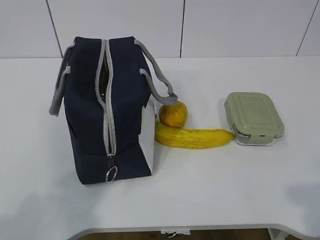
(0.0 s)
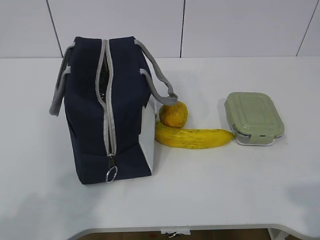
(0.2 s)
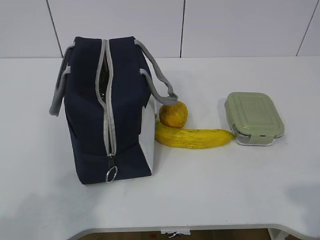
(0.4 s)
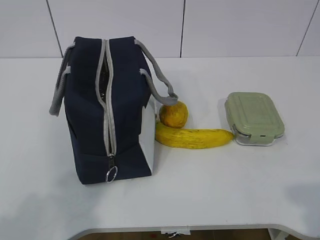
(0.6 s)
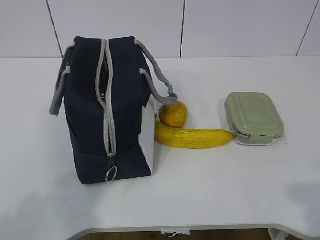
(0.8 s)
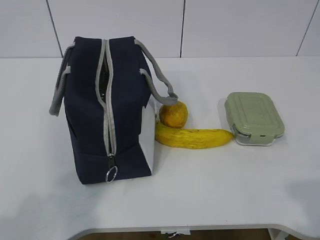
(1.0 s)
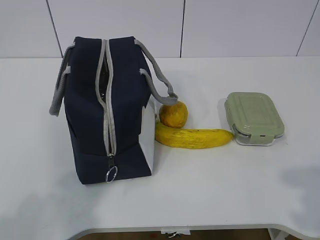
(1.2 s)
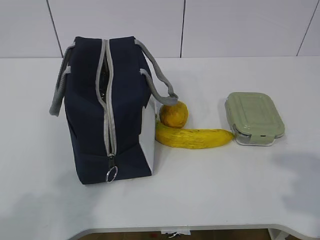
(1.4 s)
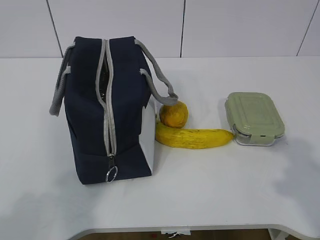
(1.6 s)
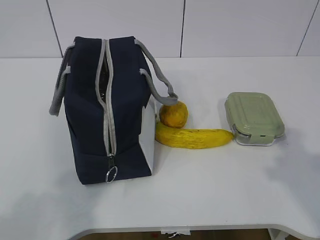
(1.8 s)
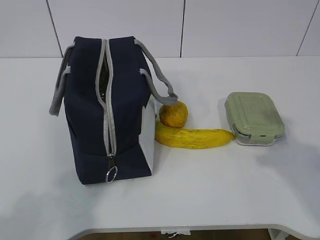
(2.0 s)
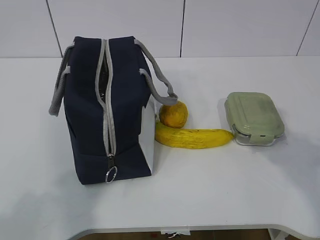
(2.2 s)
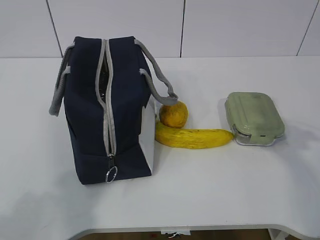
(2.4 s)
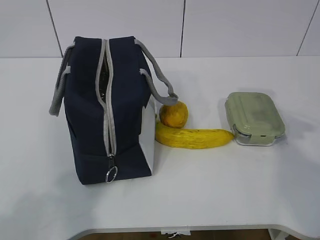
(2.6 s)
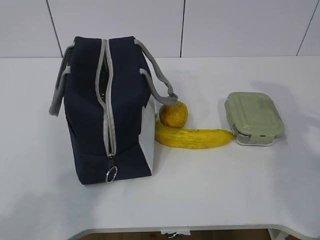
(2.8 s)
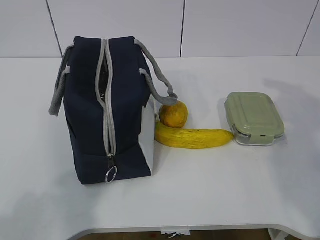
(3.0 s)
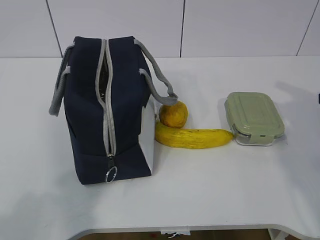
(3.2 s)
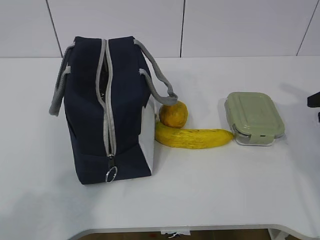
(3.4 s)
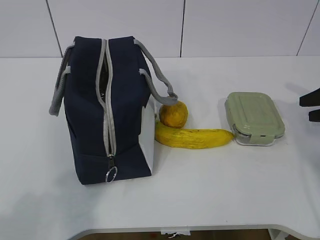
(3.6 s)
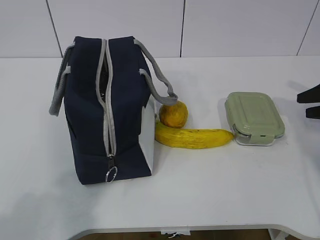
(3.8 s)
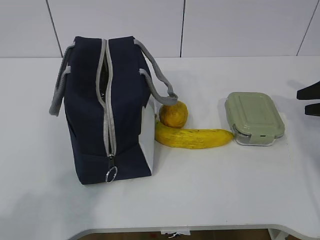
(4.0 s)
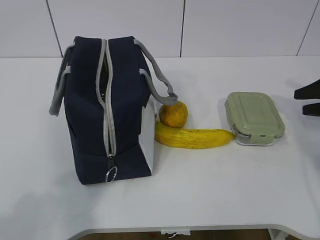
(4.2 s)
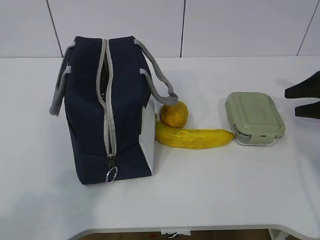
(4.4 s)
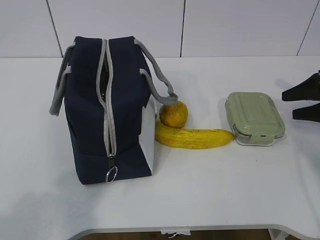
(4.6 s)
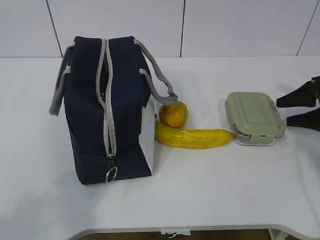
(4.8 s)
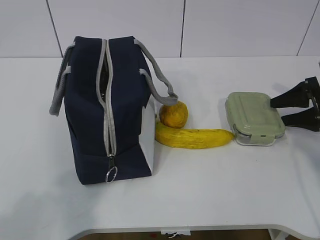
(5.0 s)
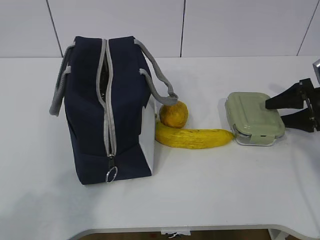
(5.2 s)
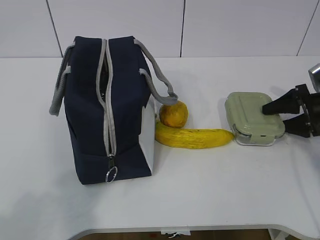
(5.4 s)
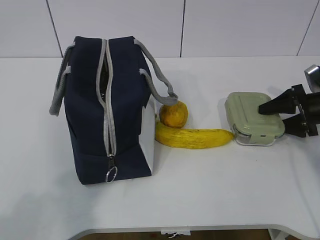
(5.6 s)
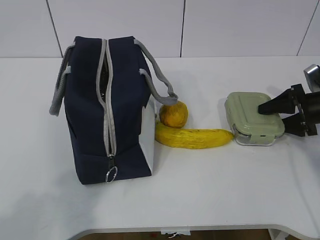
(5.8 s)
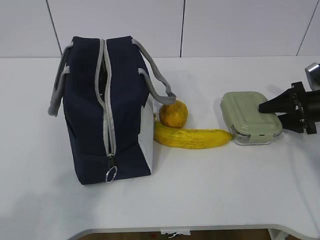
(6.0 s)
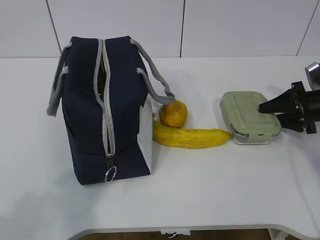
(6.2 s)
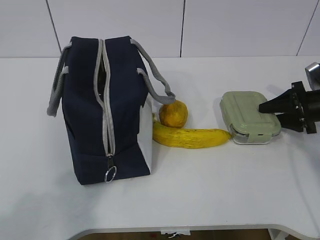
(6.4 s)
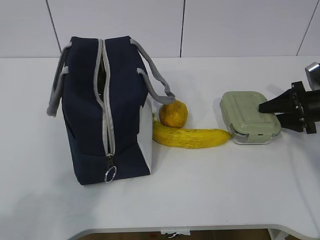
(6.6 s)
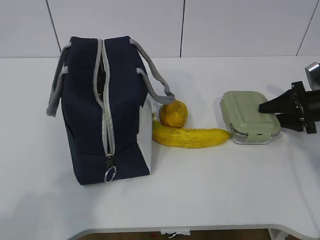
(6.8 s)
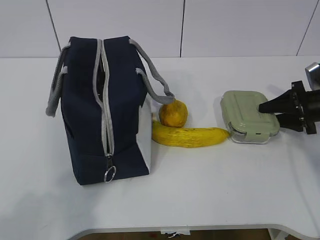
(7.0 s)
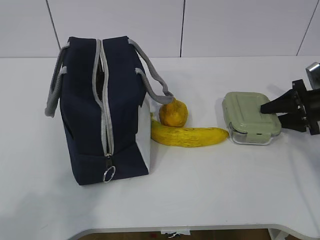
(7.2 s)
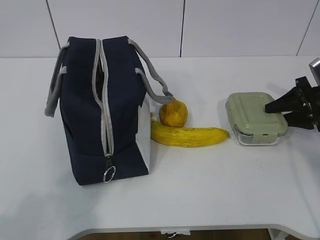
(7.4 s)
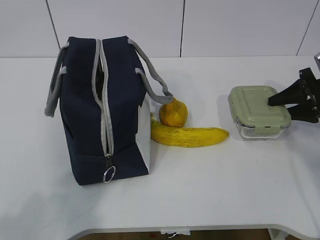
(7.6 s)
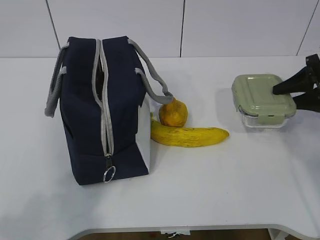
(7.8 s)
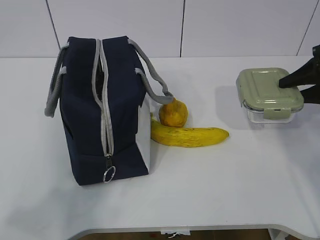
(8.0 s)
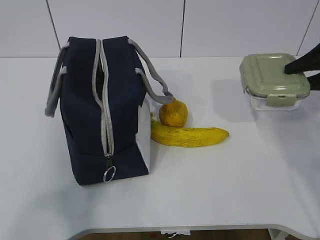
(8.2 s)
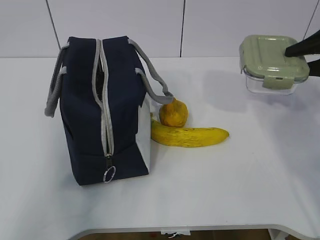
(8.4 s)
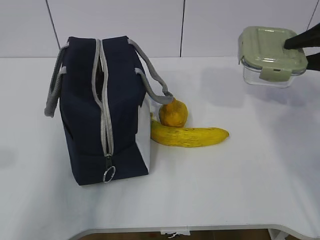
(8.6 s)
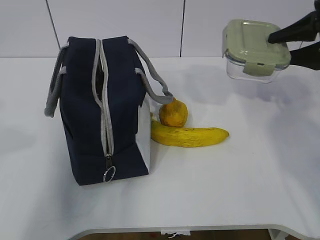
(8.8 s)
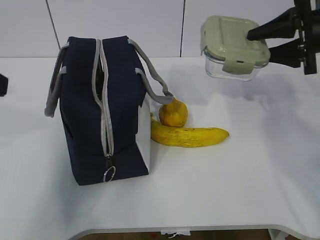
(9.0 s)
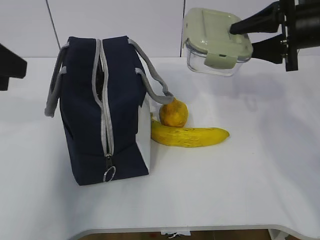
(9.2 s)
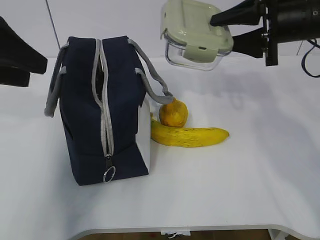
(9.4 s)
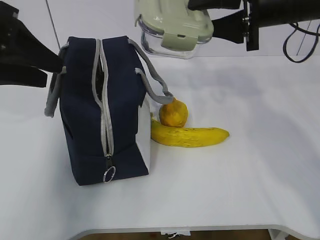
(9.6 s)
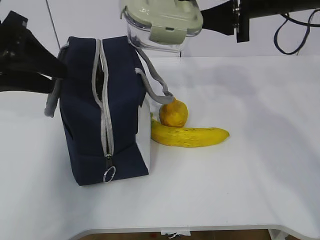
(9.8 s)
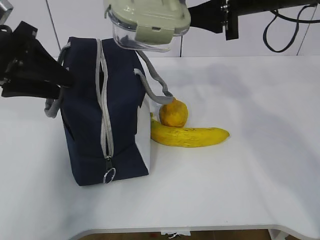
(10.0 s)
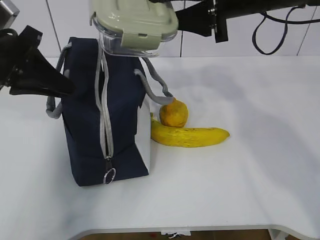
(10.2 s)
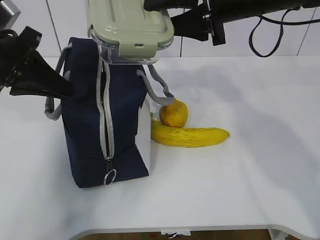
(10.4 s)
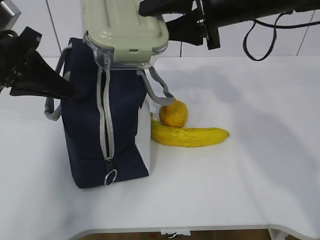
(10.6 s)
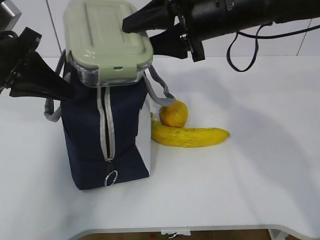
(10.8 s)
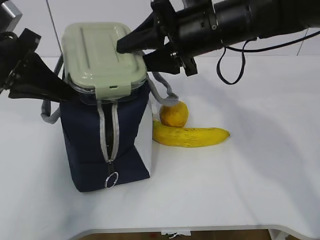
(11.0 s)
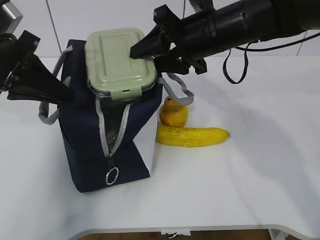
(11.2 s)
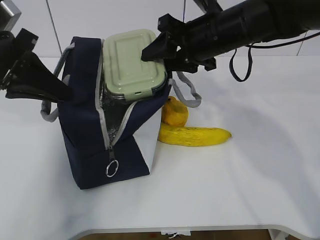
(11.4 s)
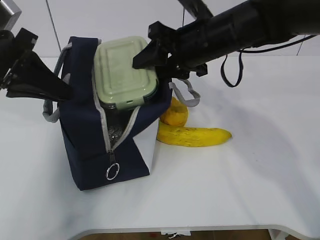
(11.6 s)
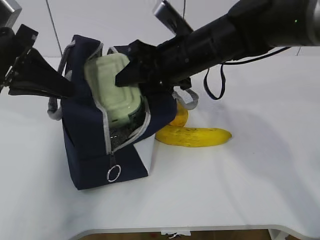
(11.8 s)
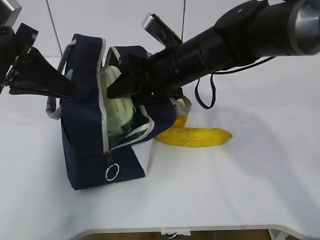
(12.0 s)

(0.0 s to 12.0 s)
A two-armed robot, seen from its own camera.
Step, 0.0 s - 7.0 s: Grasp the box with the right gripper.
1.6 s - 3.0 s: The right gripper heads forward, covering about 20 cm.
3.0 s - 4.4 s: The right gripper goes approximately 15 cm downward and forward.
4.4 s - 6.0 s: The right gripper is displaced downward by approximately 5 cm.
6.0 s - 7.6 s: There are only small adjustments of the grippers.
7.6 s - 9.0 s: The left gripper shifts some 20 cm forward. The right gripper moves upward and to the left, about 15 cm.
9.0 s - 10.4 s: The right gripper is displaced to the left by roughly 15 cm, while the left gripper shifts about 10 cm forward and downward, and closes its fingers.
10.4 s - 12.0 s: The right gripper shifts some 15 cm downward and to the left.

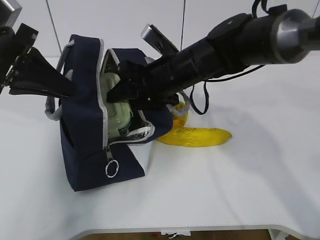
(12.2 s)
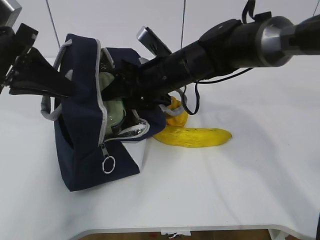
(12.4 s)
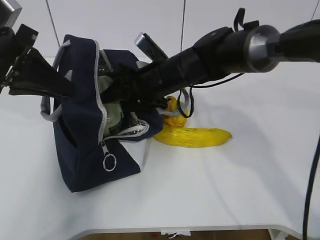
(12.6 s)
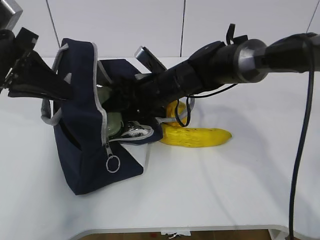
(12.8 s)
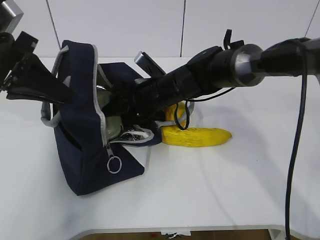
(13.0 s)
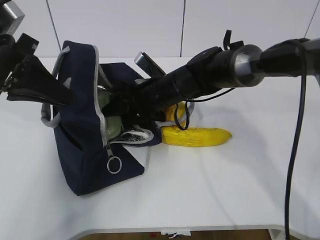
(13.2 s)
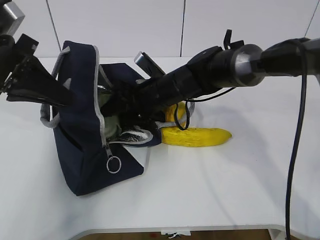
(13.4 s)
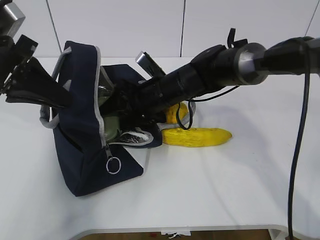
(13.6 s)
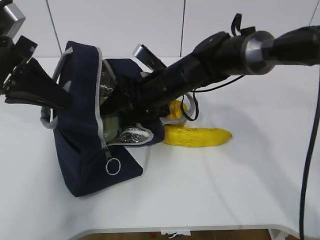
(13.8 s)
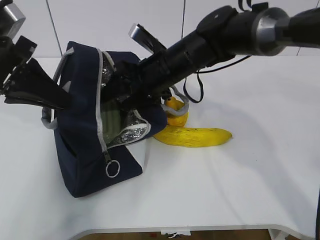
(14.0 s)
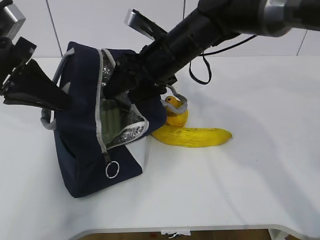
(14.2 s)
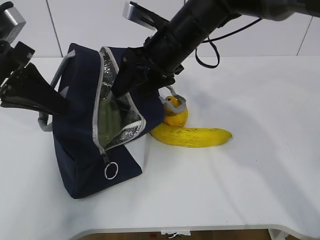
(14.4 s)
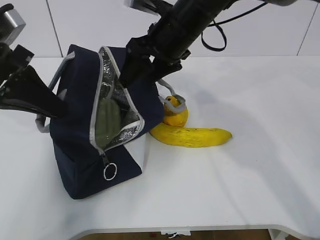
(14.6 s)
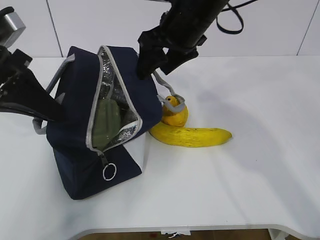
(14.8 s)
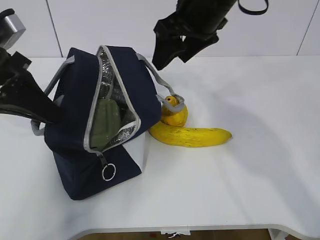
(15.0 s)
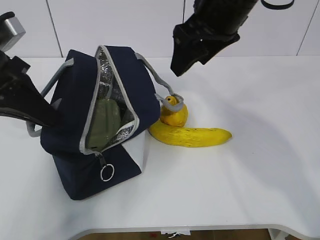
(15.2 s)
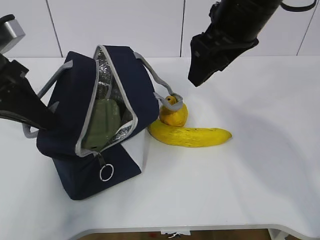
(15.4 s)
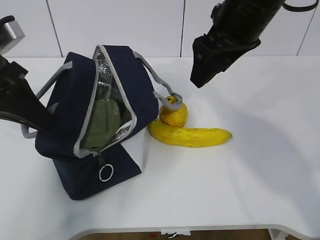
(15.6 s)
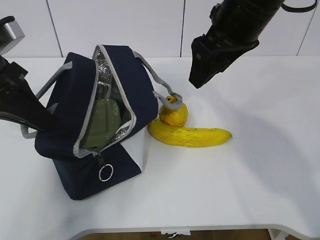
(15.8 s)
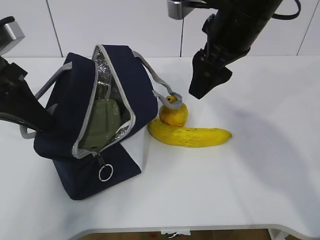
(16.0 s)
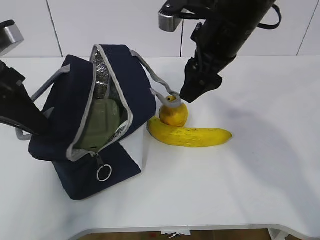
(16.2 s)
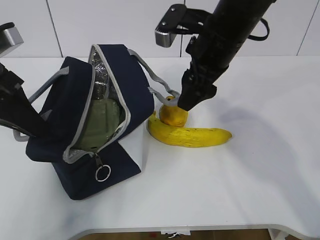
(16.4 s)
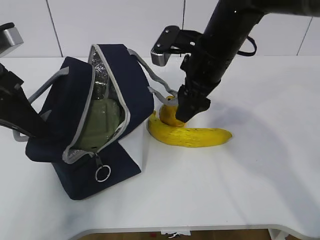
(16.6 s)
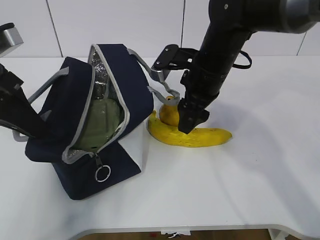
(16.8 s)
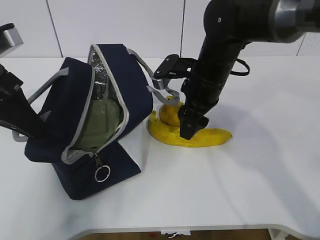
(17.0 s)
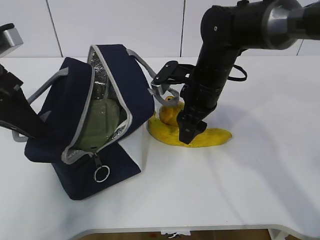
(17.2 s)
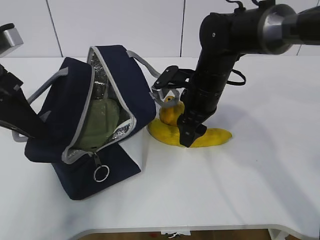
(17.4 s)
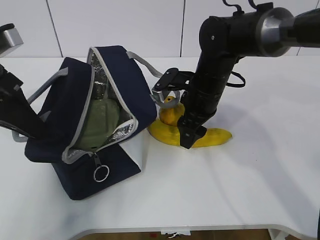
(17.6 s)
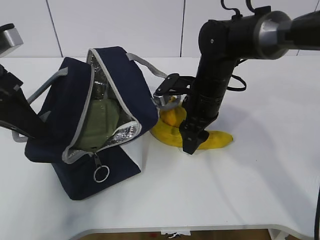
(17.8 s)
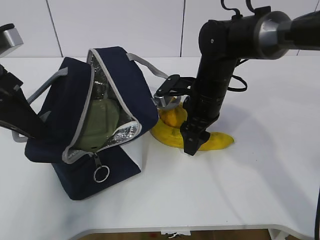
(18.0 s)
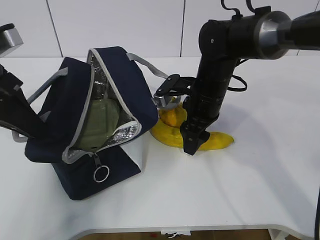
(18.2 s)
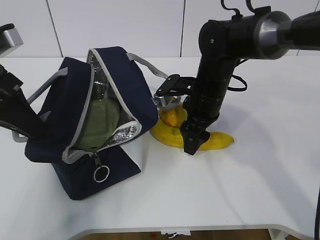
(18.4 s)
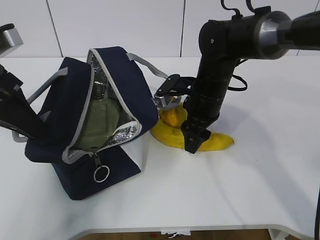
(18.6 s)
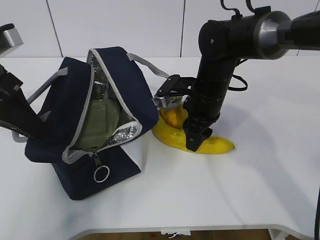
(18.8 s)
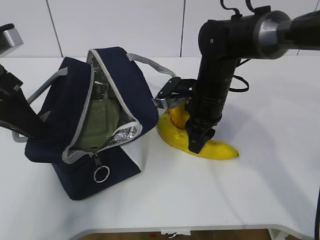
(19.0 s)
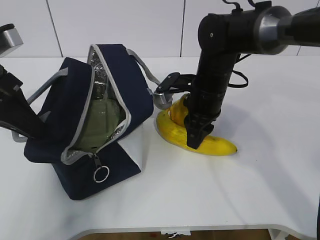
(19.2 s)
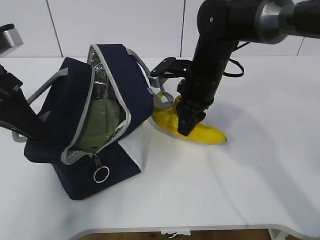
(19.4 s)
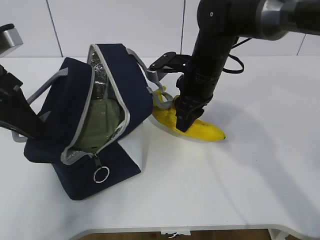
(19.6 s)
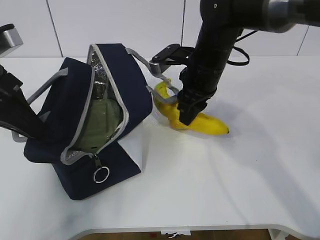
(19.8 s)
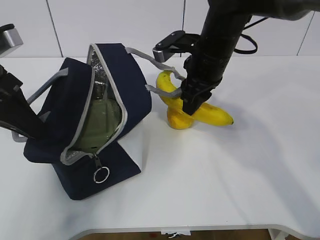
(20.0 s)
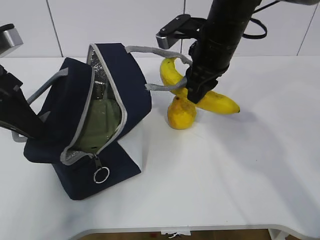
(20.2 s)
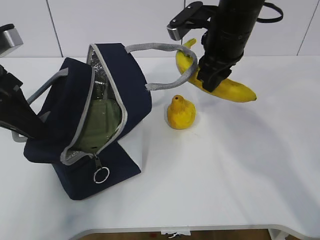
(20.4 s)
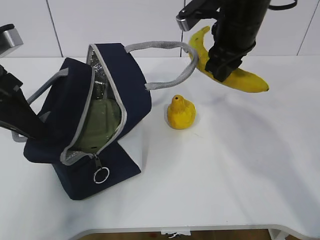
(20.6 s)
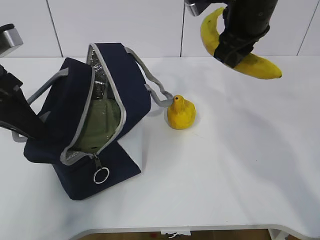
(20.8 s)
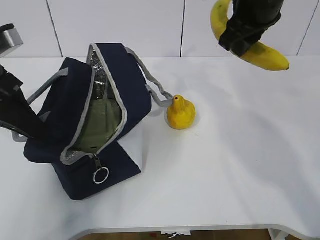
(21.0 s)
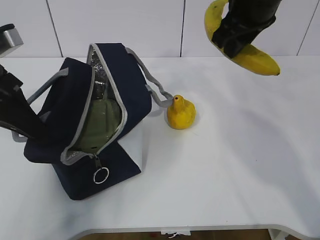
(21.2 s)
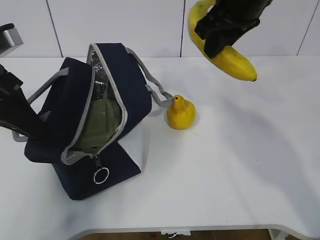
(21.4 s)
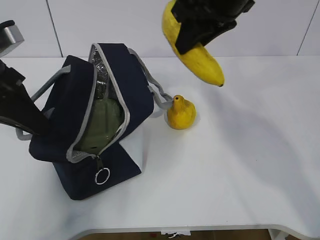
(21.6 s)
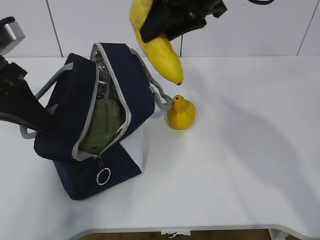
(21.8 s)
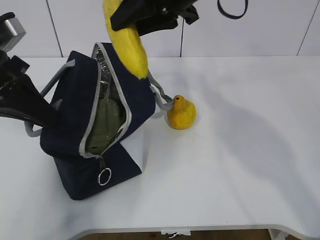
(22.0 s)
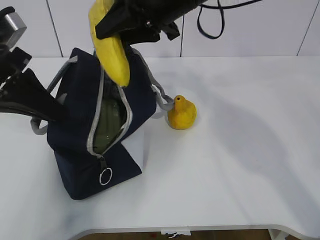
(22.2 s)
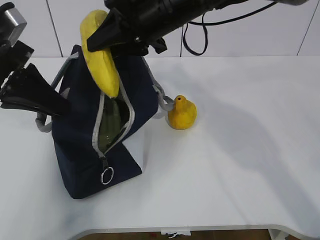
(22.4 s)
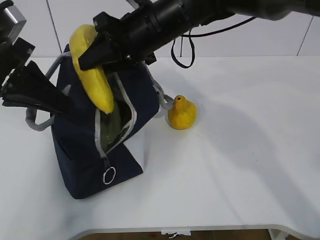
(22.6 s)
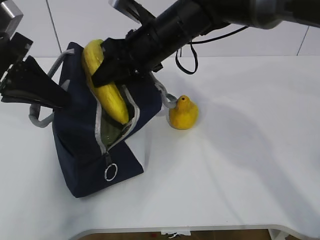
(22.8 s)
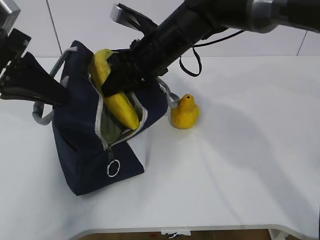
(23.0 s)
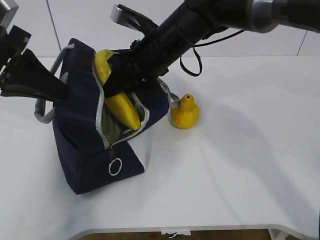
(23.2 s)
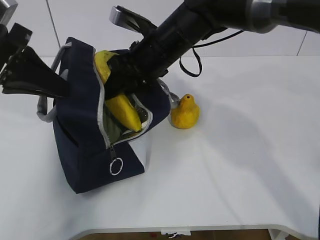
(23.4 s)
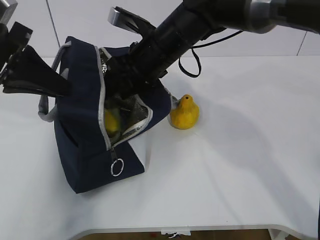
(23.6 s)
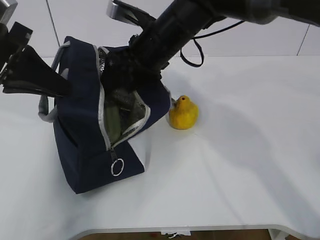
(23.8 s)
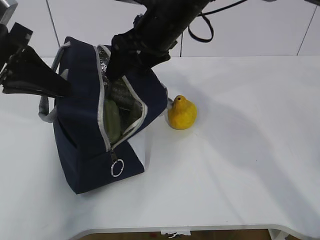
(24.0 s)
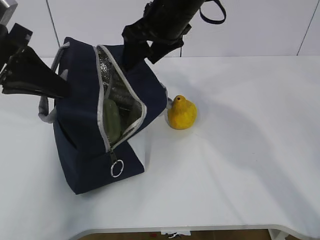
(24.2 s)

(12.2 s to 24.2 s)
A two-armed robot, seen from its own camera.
Step, 12.2 s - 14.2 s: Place the box into the package with the right gripper.
Step, 14.4 s - 19.0 s: Grasp the banana with the right gripper.
Step, 19.2 s - 24.0 s: Place the banana into the package with the right gripper.
13.8 s - 15.2 s: The right gripper moves upward and to the right, about 20 cm.
15.2 s - 16.6 s: The right gripper moves downward, approximately 10 cm.
16.6 s - 18.2 s: The right gripper shifts roughly 10 cm downward.
18.2 s - 19.8 s: The right gripper travels upward by about 5 cm, and closes its fingers.
19.8 s - 21.2 s: The right gripper travels upward by some 10 cm.
21.2 s - 22.6 s: The right gripper heads to the left and downward, covering some 15 cm.
22.6 s - 24.2 s: The right gripper opens up.
